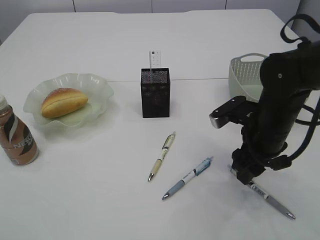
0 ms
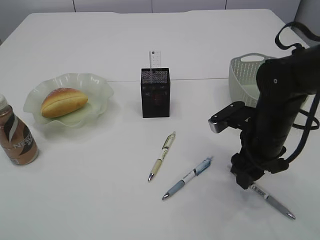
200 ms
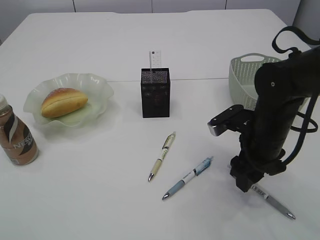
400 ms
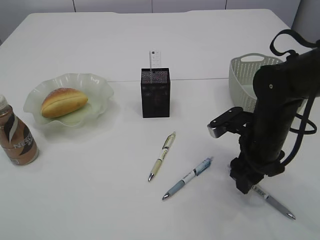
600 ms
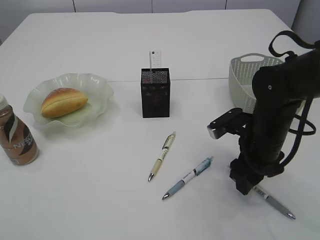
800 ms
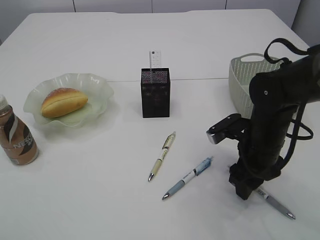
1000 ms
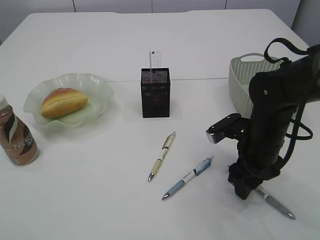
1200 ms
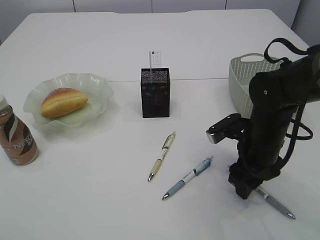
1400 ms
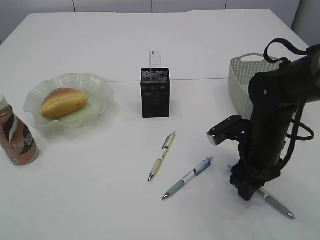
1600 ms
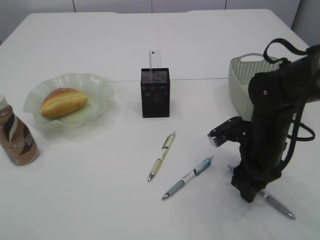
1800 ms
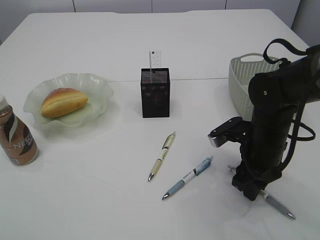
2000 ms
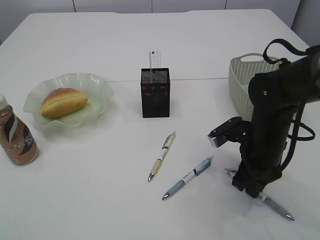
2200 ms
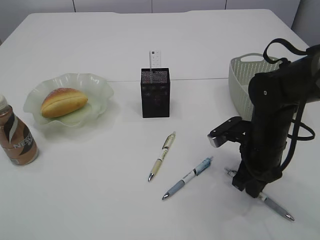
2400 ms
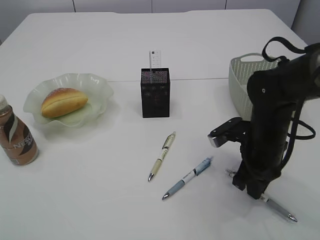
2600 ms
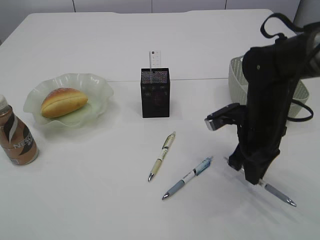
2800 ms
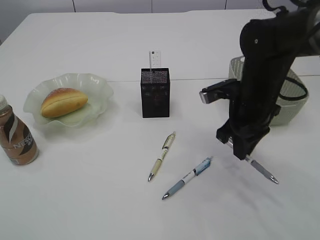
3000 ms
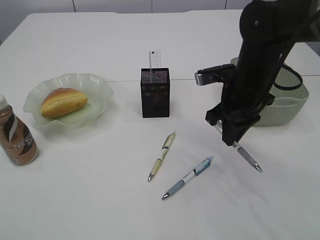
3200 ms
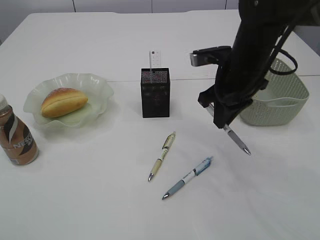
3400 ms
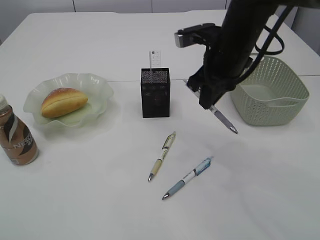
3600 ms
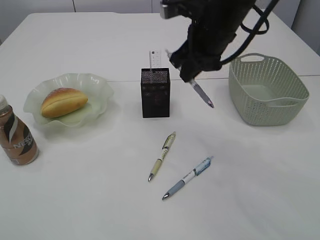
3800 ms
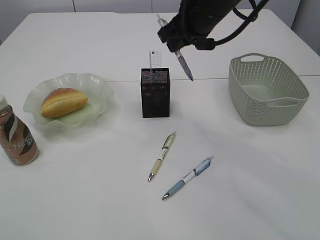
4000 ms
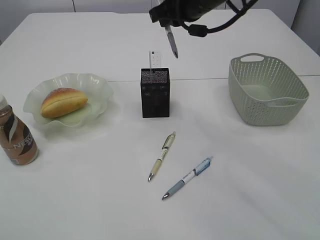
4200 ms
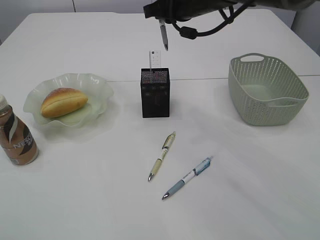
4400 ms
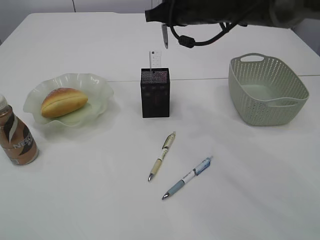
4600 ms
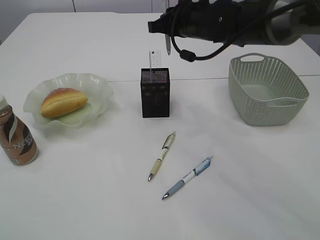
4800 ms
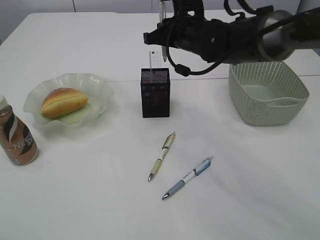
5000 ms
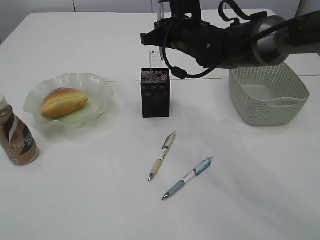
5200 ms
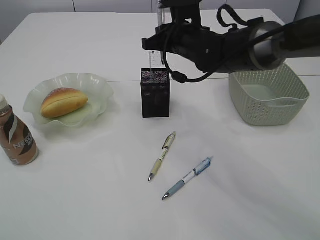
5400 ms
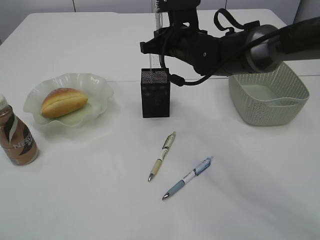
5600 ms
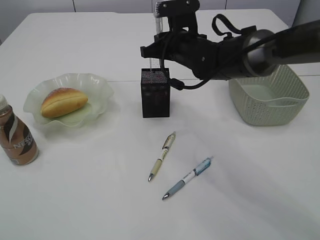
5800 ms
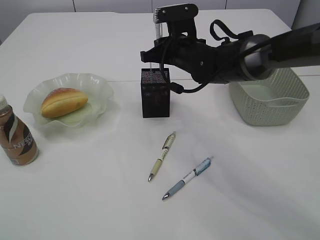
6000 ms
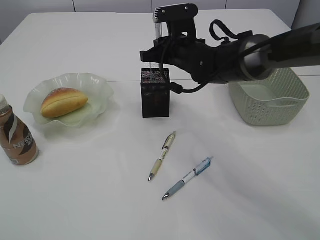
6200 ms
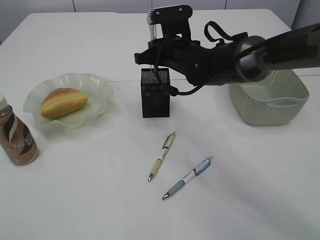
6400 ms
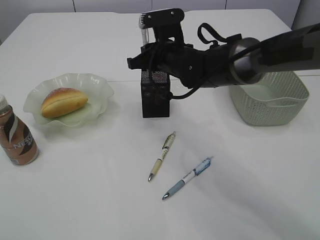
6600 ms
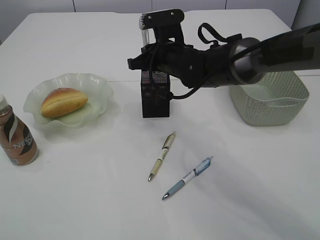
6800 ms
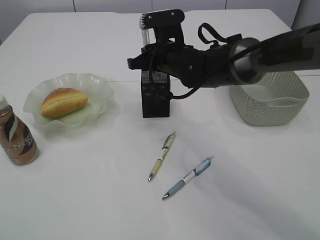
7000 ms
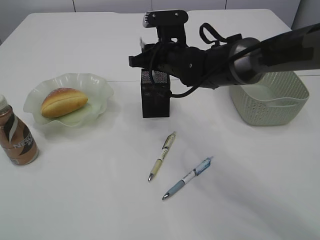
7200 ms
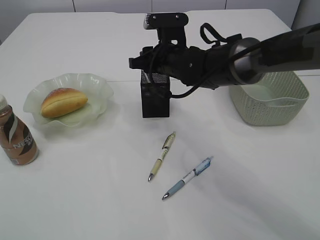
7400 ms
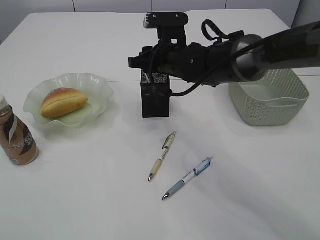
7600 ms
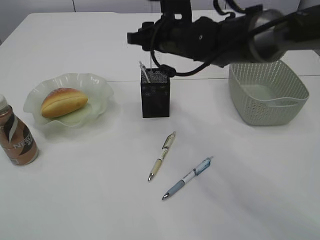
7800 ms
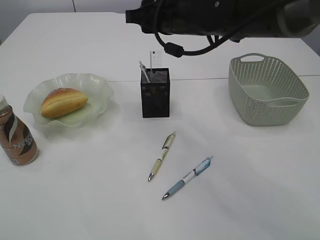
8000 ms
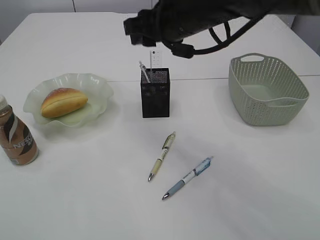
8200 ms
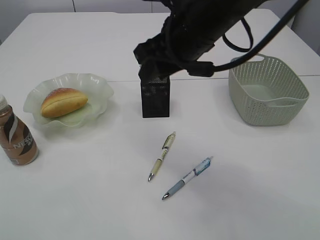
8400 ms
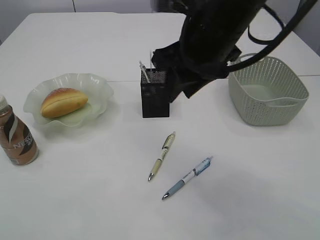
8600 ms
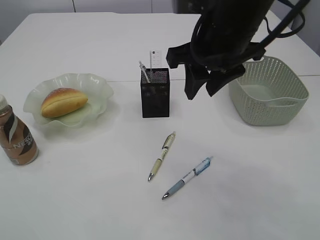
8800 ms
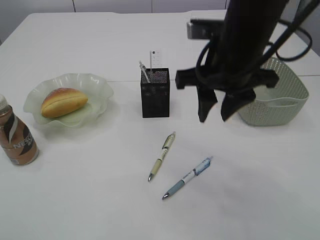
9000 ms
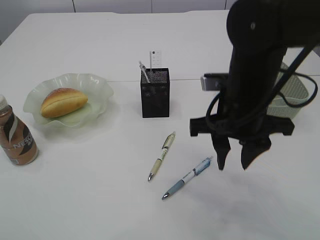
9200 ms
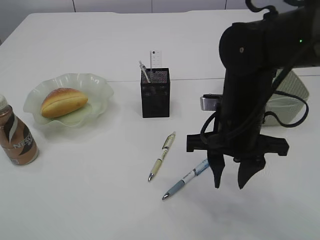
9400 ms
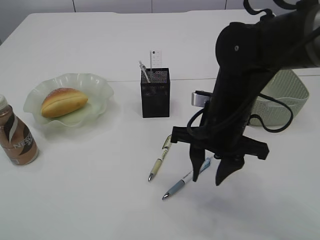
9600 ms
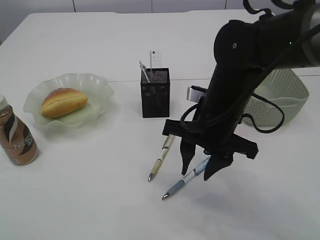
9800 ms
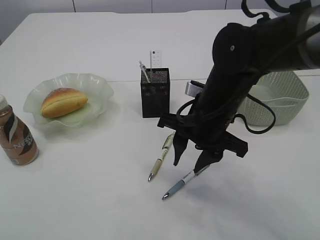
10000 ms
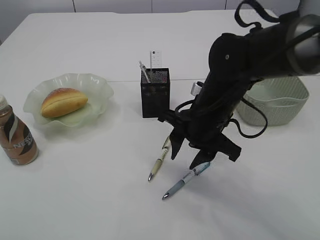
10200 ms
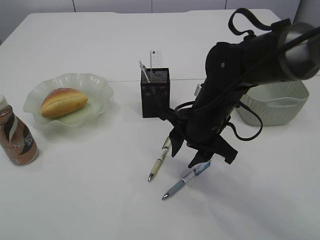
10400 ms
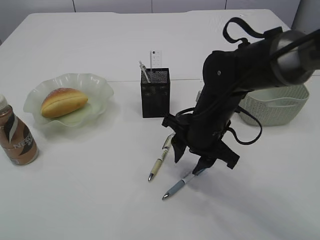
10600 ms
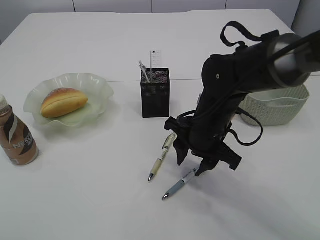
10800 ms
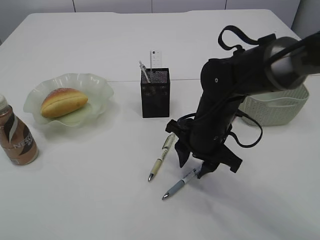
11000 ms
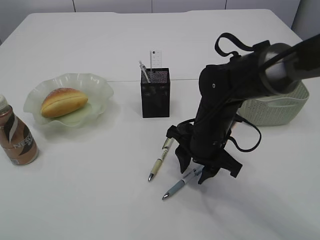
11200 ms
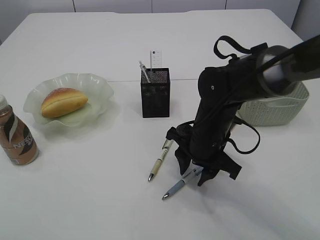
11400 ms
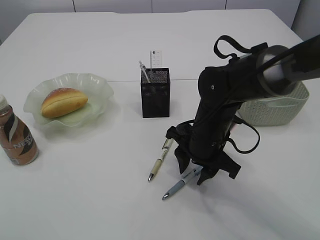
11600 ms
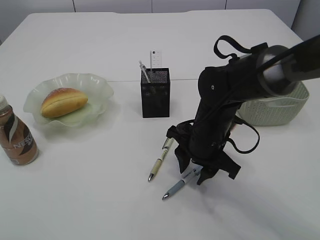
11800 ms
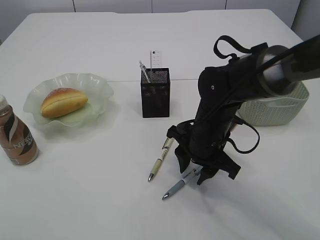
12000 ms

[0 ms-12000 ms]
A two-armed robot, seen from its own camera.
Step, 0 ms to 3200 ms: Pick up the pen with right arm.
Step, 3400 ms to 8000 ms: Place the pen into the pen holder.
0 ms to 1600 ms: There are only small adjustments of the grippers.
1600 ms to 3000 ms: The right gripper goes approximately 5 cm upward, and closes its fingers.
3000 ms to 4400 ms: The right gripper goes some 20 cm upward, forward and to the left.
4400 ms to 6000 ms: The right gripper travels downward by some 10 cm.
6000 ms to 7600 ms: The right gripper opens up.
7600 ms to 9000 ms: The right gripper travels backward, upward and to the right by some 15 cm.
9000 ms to 10400 ms: The right gripper is displaced downward by some 15 cm.
10400 ms to 12000 ms: The grippers make only small movements.

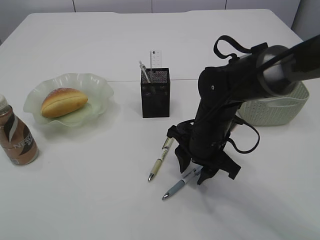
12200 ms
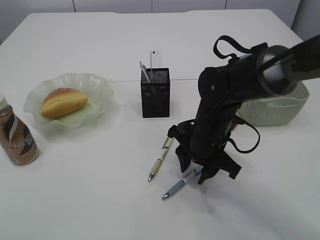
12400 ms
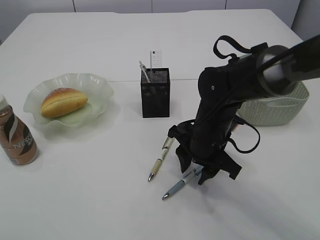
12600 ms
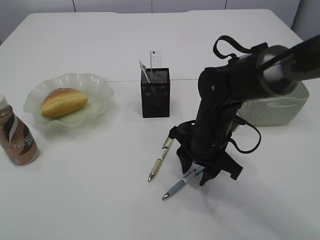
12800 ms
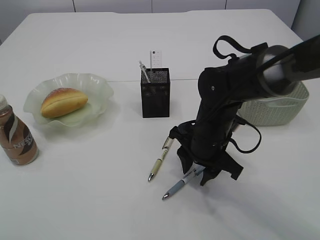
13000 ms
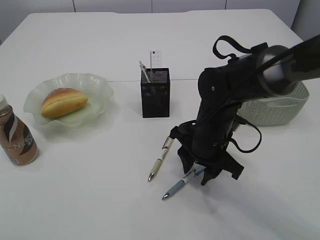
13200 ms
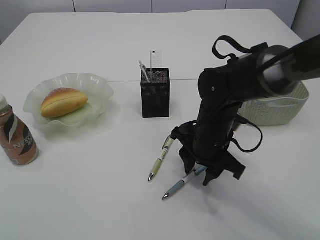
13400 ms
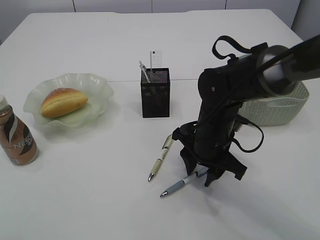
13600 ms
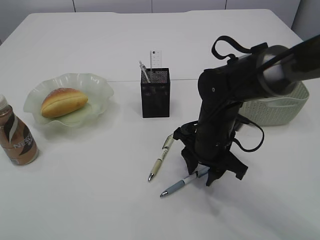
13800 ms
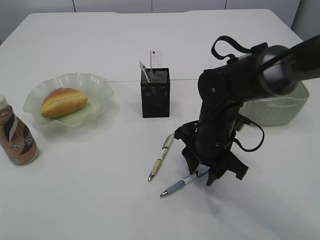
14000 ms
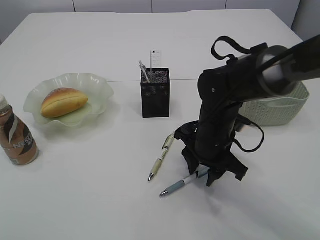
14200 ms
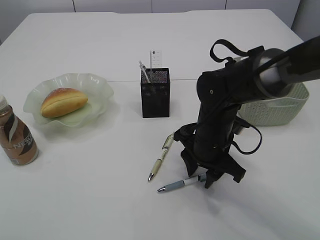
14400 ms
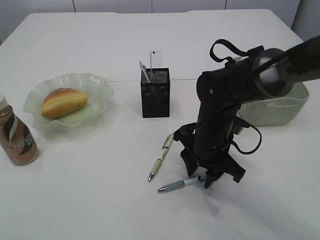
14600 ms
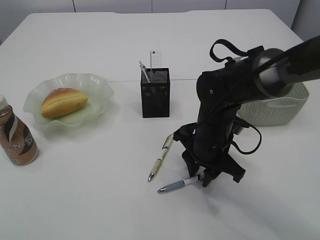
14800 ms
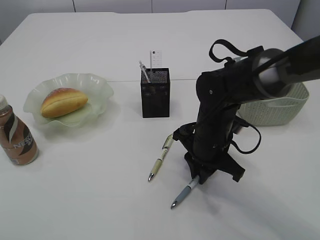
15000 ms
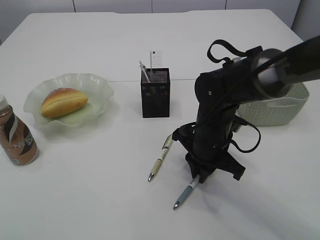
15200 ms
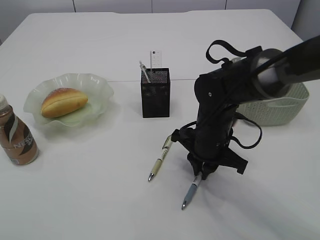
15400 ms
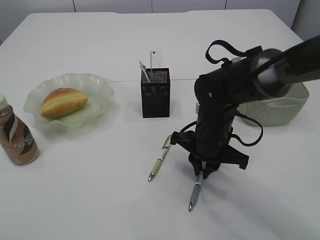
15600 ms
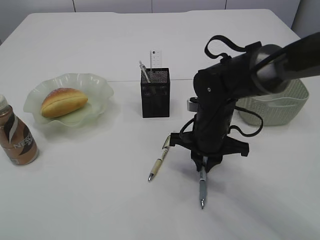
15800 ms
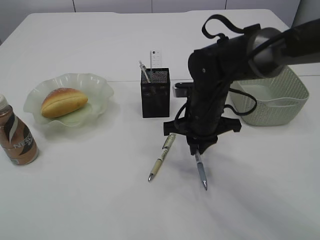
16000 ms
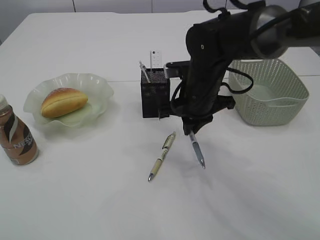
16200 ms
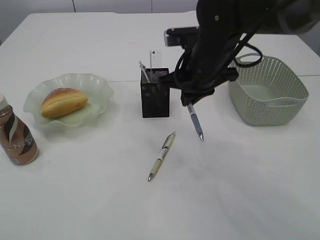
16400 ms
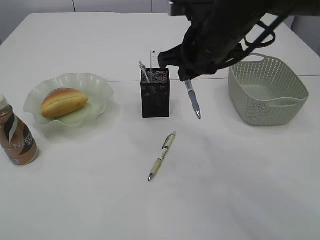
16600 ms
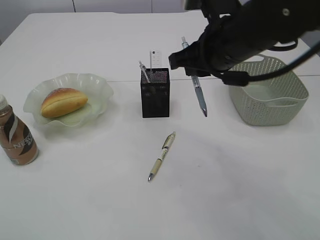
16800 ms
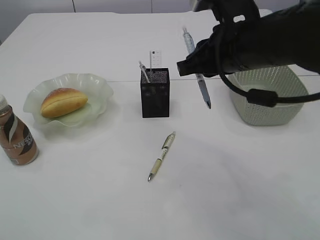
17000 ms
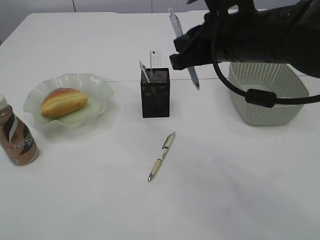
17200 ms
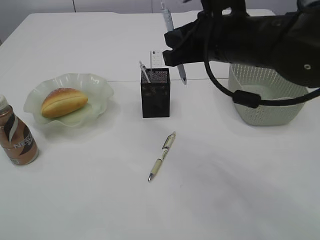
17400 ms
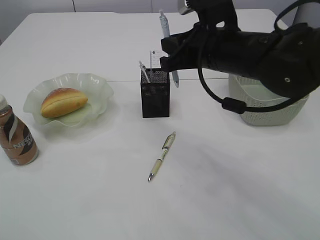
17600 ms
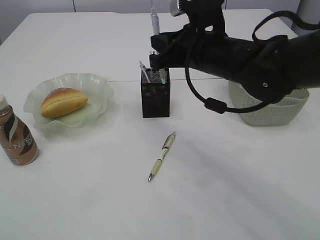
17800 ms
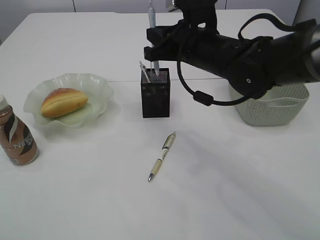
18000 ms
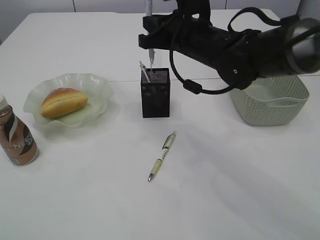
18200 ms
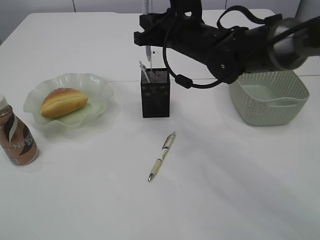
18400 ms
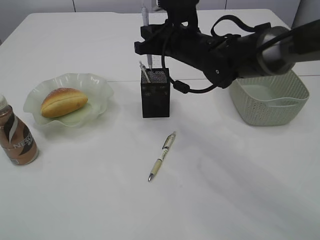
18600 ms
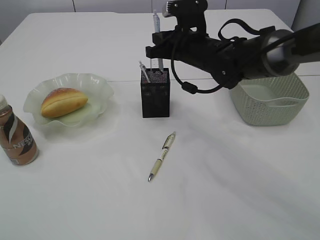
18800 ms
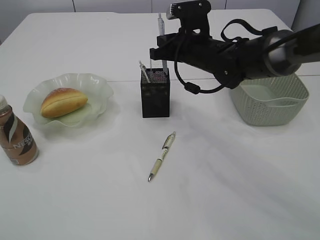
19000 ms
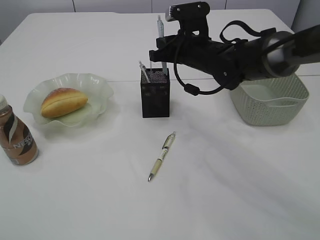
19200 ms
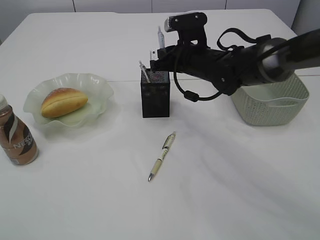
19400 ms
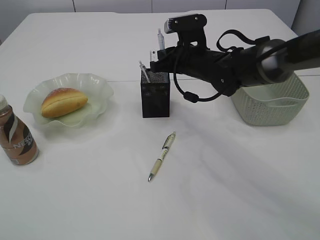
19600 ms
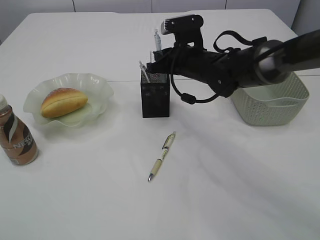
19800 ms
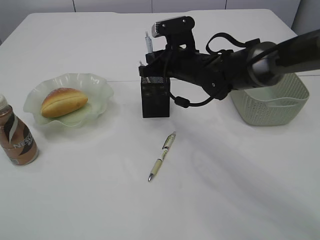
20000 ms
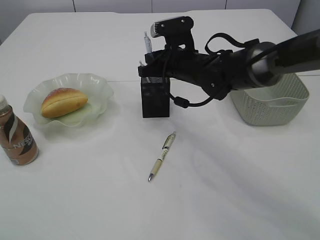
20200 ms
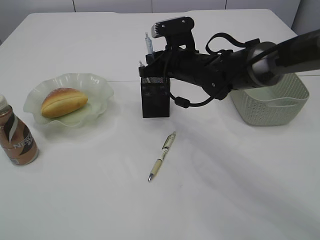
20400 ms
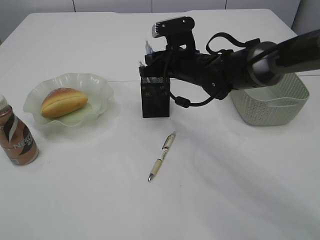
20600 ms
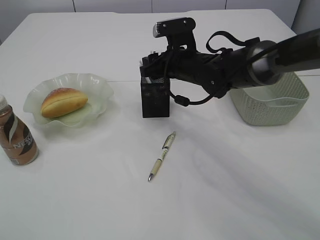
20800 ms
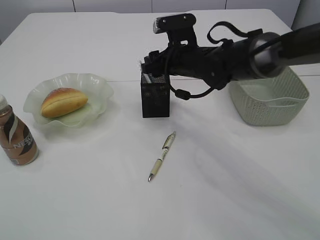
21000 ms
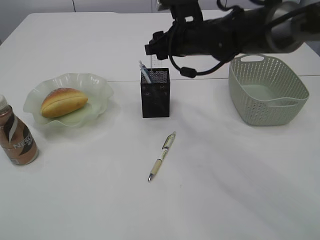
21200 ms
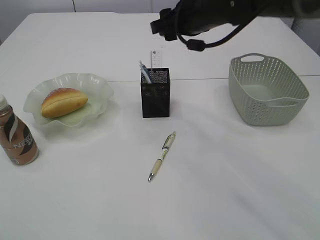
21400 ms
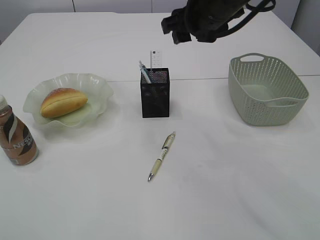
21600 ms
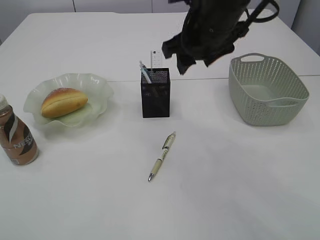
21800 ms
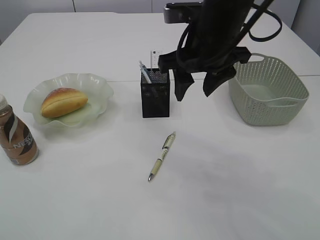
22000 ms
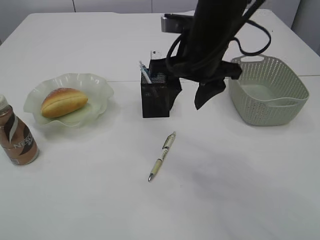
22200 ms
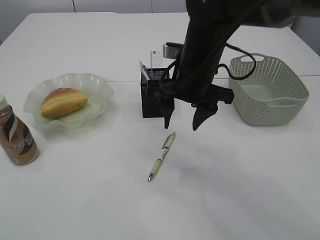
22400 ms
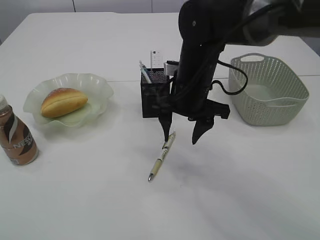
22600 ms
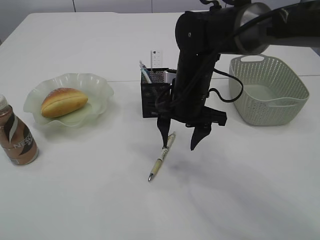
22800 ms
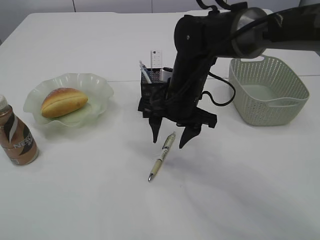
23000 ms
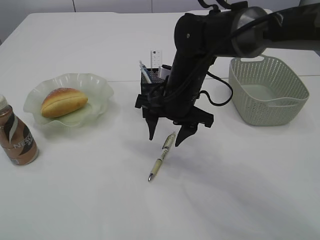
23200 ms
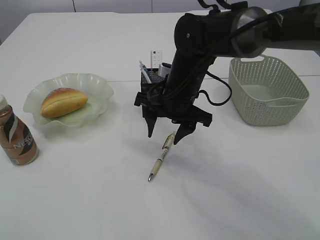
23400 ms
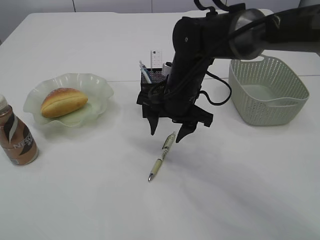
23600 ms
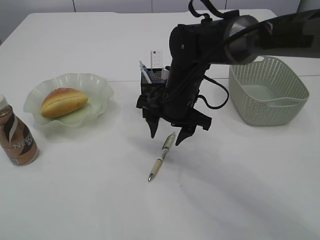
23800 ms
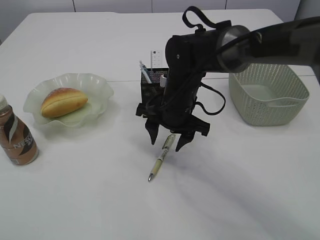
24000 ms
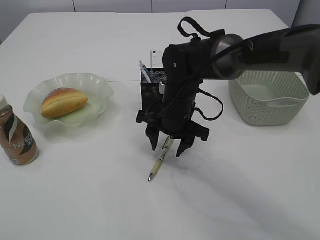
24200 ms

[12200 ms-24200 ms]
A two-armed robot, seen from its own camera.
Step, 12200 ms to 16200 ms: Pick up the pen with right arm.
Step, 16400 ms to 21400 ms: Place the pen into the pen holder.
12200 ms to 13800 ms: The two grippers keep their place.
13800 ms to 15200 ms: The right gripper closes its fingers.
15200 ms to 16600 ms: The right gripper shifts some 15 cm upward.
16600 ms to 18200 ms: The right gripper ends up roughly 5 cm from where it was.
18200 ms to 19800 ms: The right gripper heads downward, covering roughly 5 cm.
19800 ms to 21200 ms: The right gripper opens its fingers.
21200 ms to 22600 ms: The right gripper moves backward, about 10 cm, and travels upward and back again, about 10 cm each way.
22600 ms to 24200 ms: The right gripper shifts some 5 cm downward.
